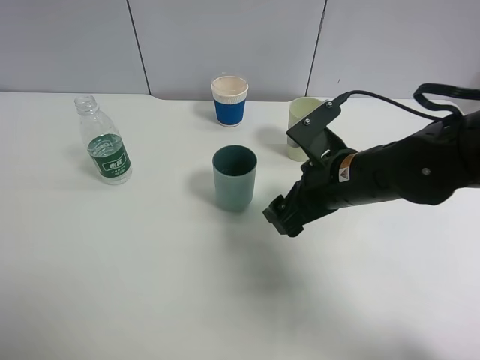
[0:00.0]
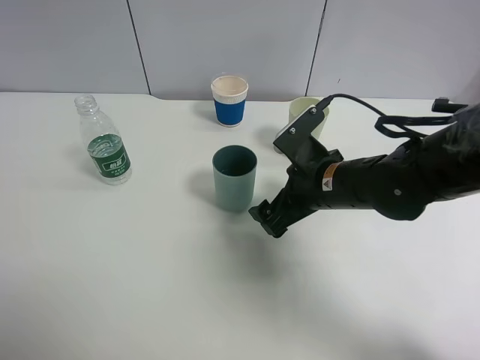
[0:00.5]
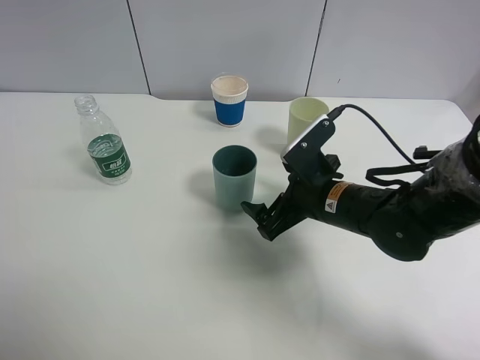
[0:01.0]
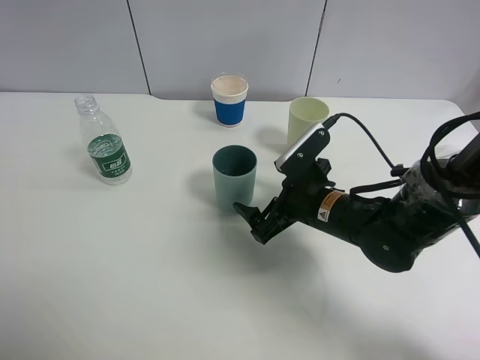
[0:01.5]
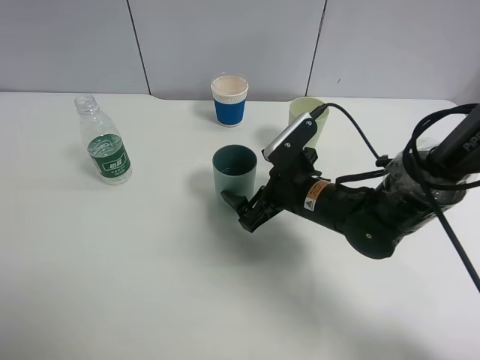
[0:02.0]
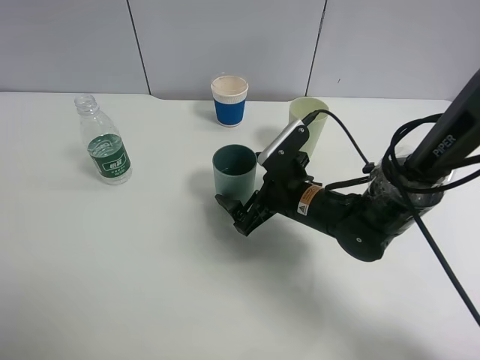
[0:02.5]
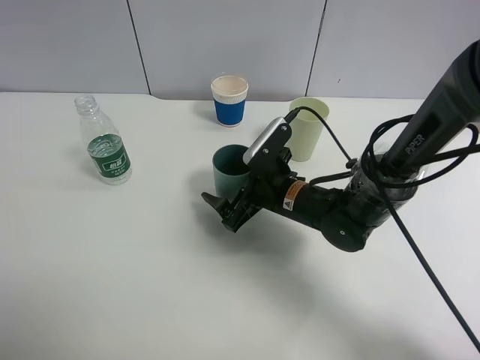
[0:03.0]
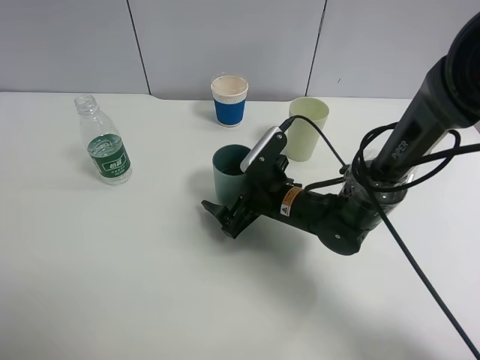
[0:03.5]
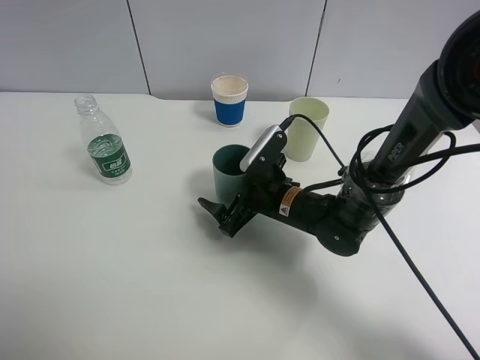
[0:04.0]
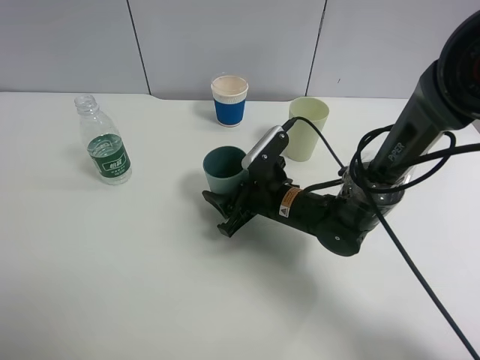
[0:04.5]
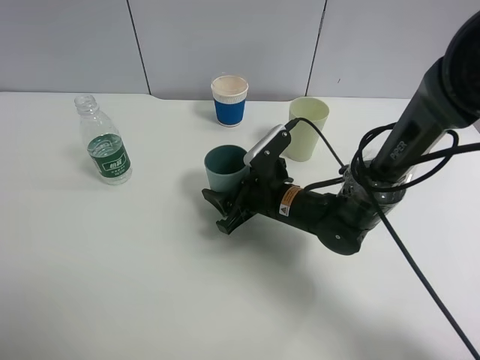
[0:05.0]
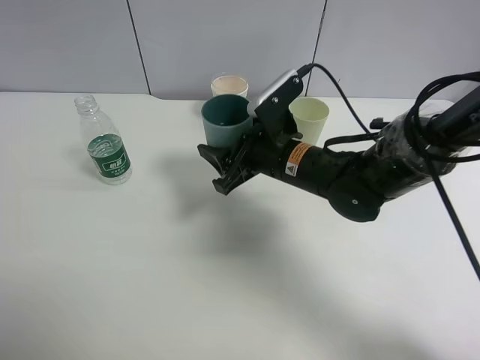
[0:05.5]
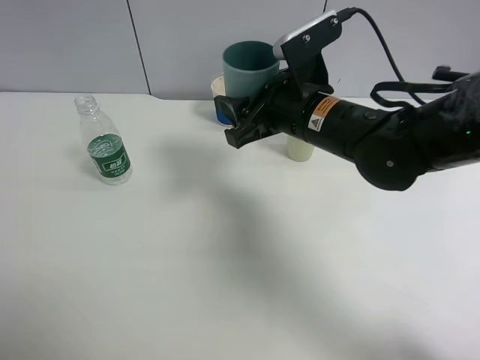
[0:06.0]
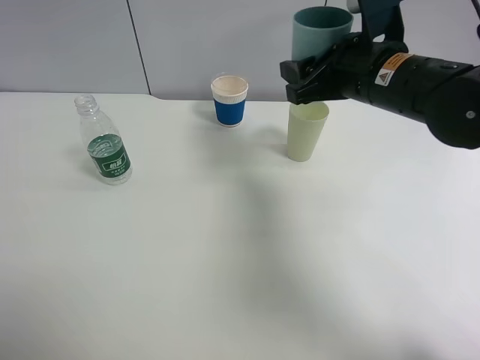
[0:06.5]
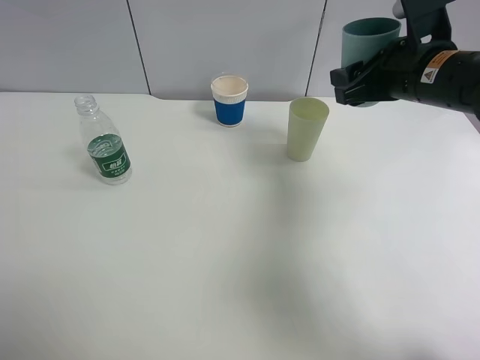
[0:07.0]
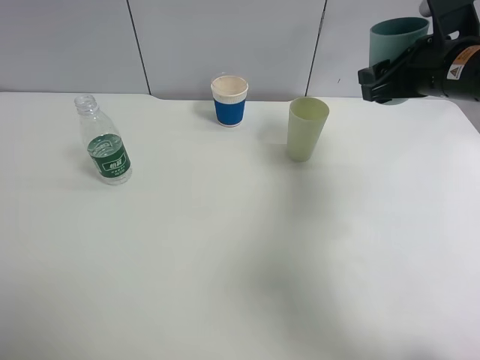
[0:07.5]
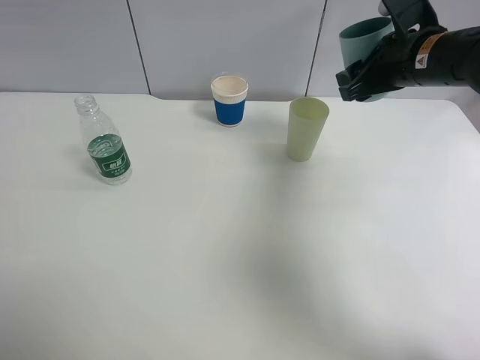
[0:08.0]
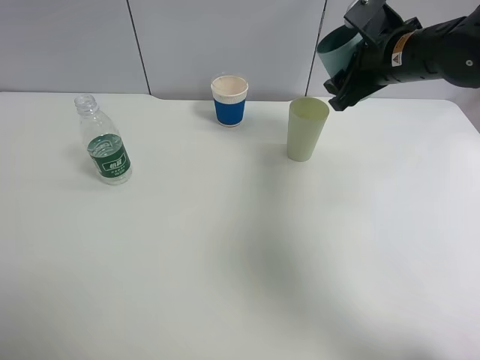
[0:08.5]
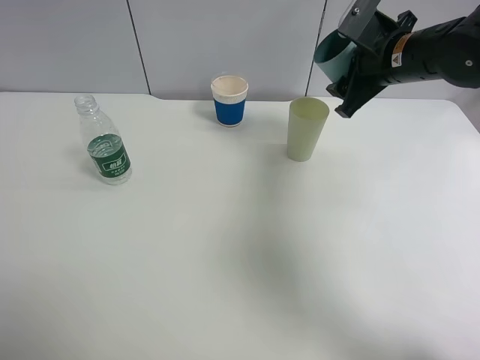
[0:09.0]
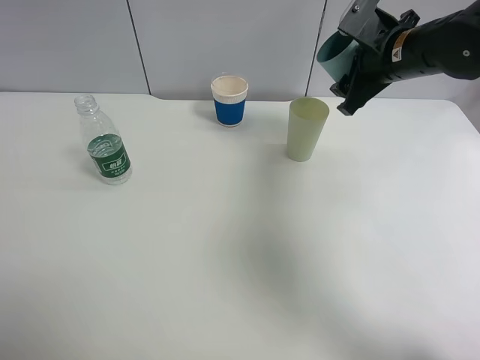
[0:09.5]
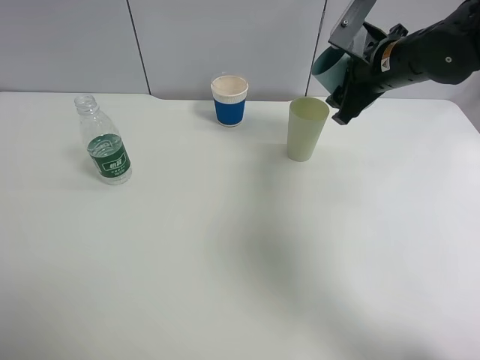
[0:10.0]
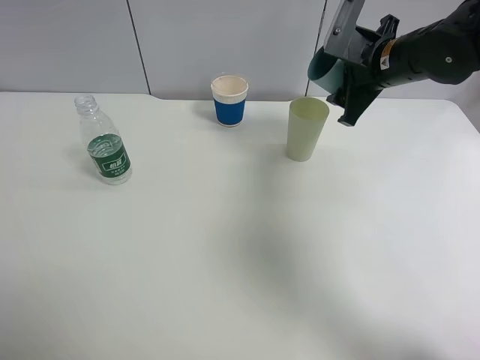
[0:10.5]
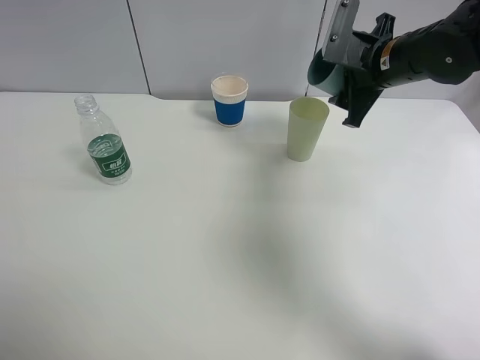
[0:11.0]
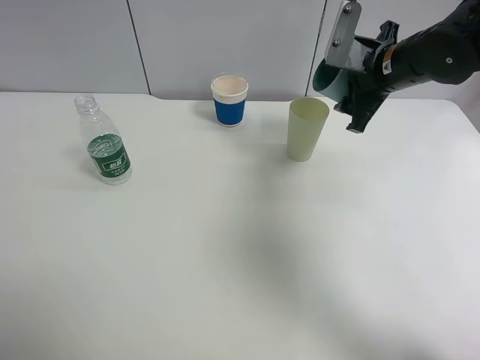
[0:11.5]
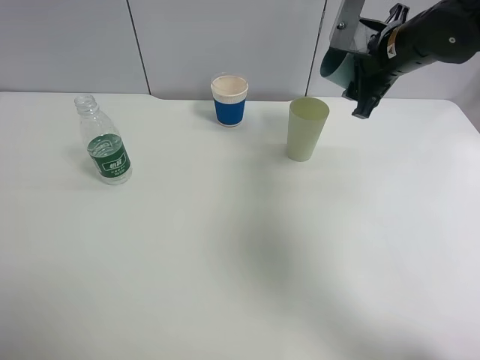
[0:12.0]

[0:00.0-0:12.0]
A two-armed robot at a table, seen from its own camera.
Task of the whole recording: use a clamp to hold the bottle of the drink, pour the beverage into a random cup, then clamp the cup containing the drink and pour the drink into another random cup.
Step, 0:00.0 to 0:05.0: Pick up the blue plastic cup bottle with right gripper.
0:00.0 to 0:02.0: The right gripper goes approximately 5 cm downward.
0:02.0 to 0:04.0: There are only small adjustments of the grippers.
0:04.0 to 0:06.0: The right gripper moves upward, some 15 cm, and closes its fingers.
0:06.0 to 0:08.0: The right gripper is displaced to the right and forward by approximately 15 cm.
0:10.0 to 0:12.0: There are only small adjustments of the grippers.

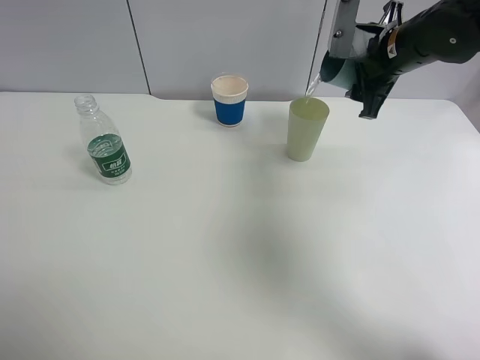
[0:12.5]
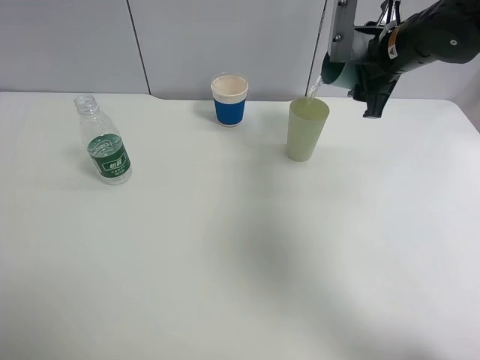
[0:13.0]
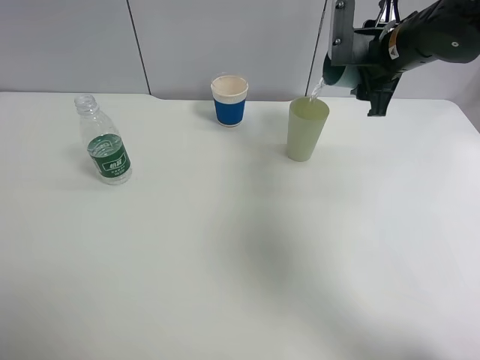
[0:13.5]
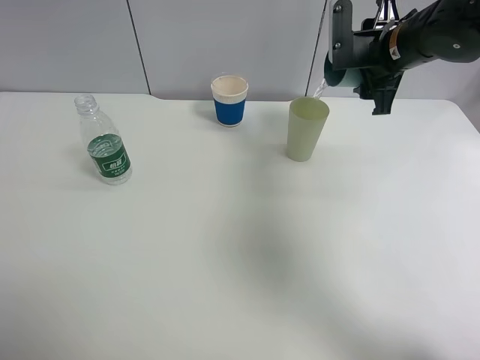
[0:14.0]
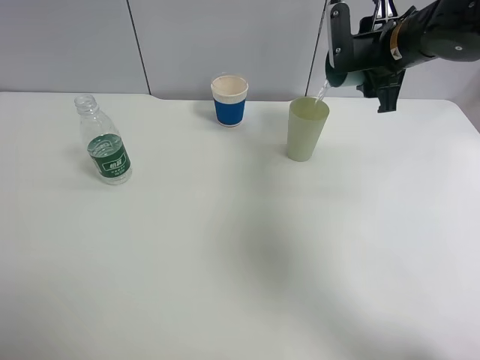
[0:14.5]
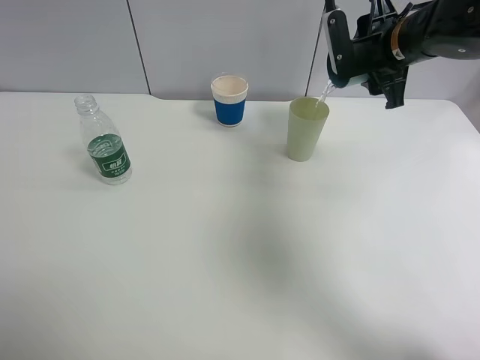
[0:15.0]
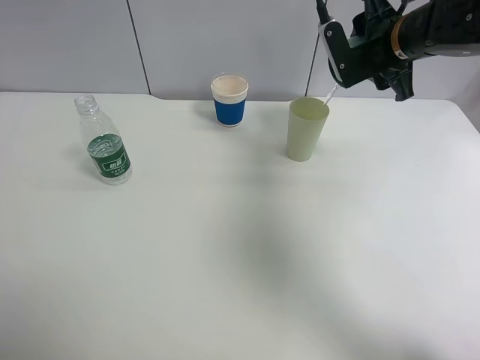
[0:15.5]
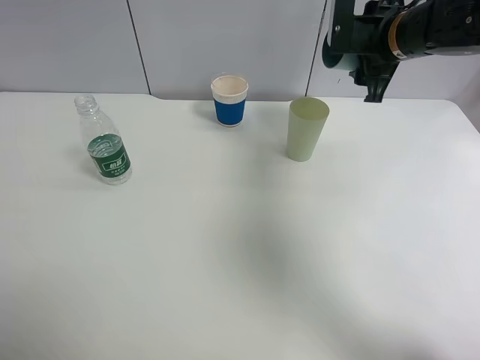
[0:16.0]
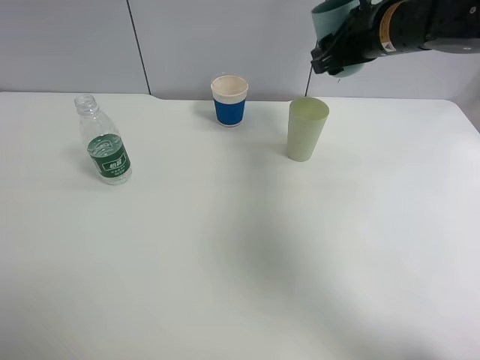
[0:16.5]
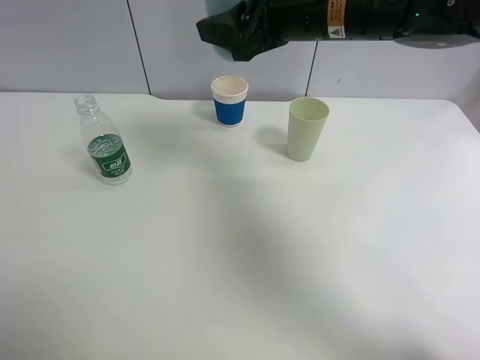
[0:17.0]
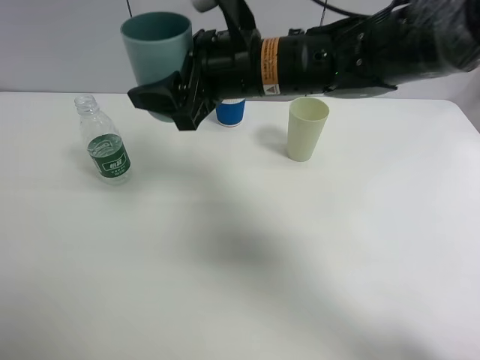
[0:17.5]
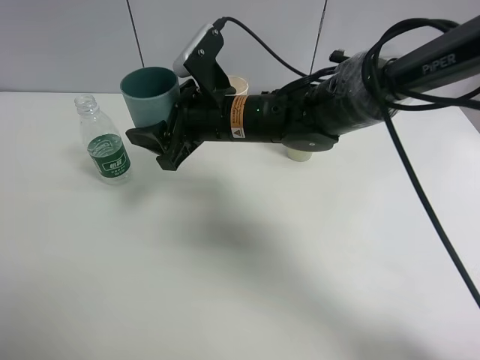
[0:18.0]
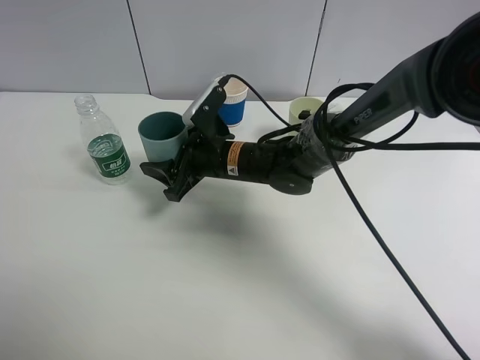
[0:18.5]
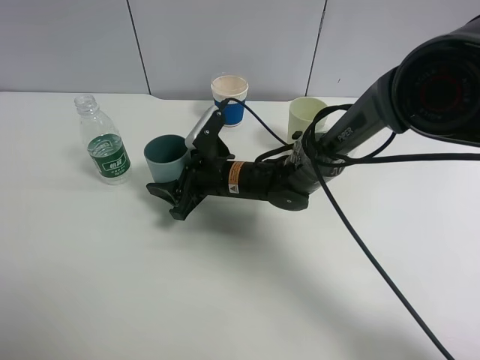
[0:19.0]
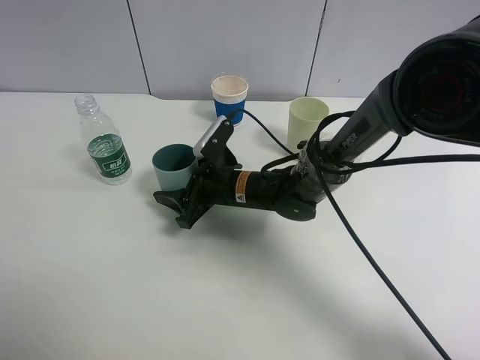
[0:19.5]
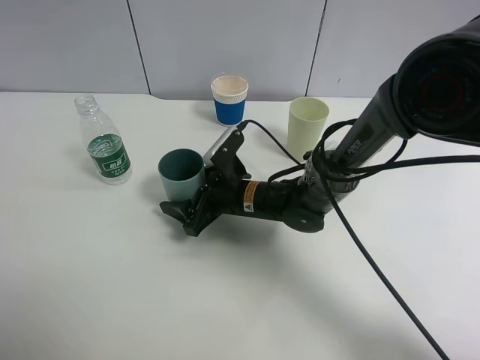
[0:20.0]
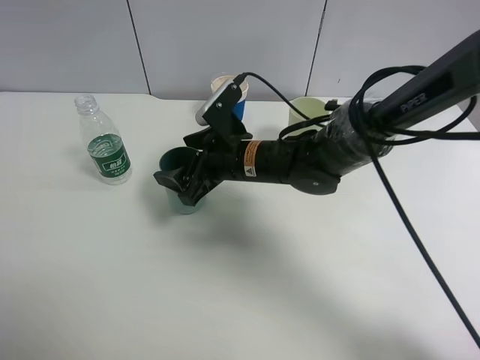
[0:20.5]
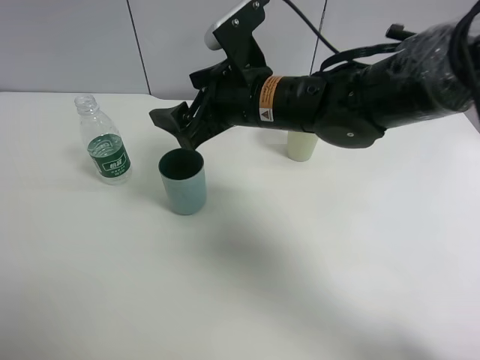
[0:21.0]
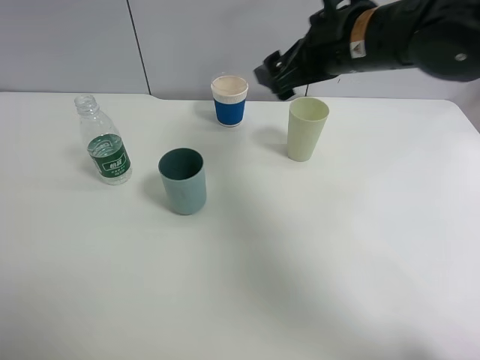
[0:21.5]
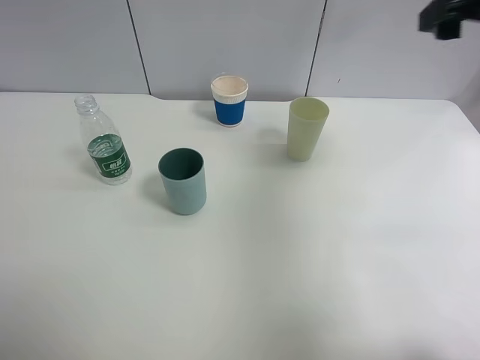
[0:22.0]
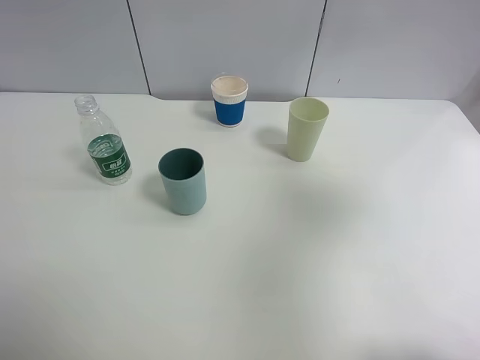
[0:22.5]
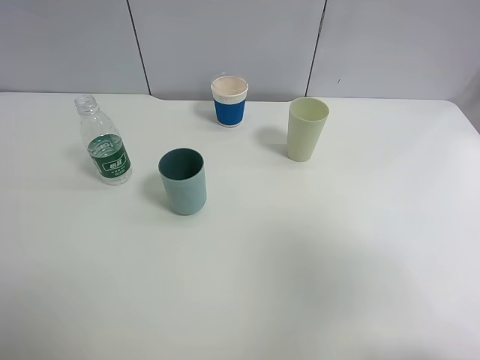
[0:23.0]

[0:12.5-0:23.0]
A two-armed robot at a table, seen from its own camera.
Task of the whole recording: use a clamp to hold the bottle of the drink, pour the beverage into a random cup, then clamp the cup containing the drink and pour the drink into another random cup.
Step, 0:12.5 to 0:15.5: Pour water into the green plastic cup with right gripper.
Step, 0:16.0 to 0:20.5: Place the blue plastic cup on the table with right gripper.
0:12.5 to 0:14.5: The grippers make only small movements.
0:16.5 to 0:19.0: The right gripper heads downward and to the left, covering some 30 cm.
0:19.0 to 0:21.0: The right gripper moves upward, some 15 cm, and opens.
0:21.0 to 0:23.0: The right gripper shifts about 40 cm backward, to the right and upward.

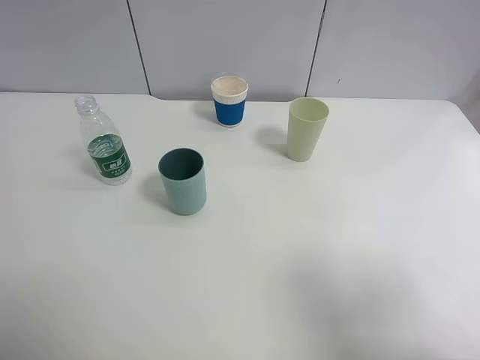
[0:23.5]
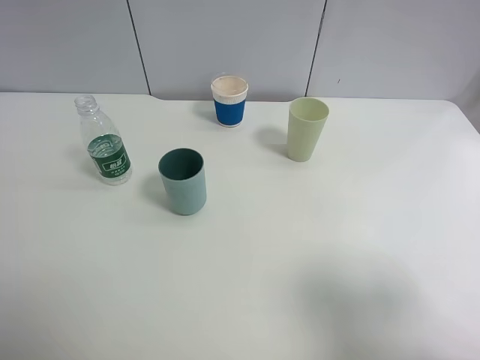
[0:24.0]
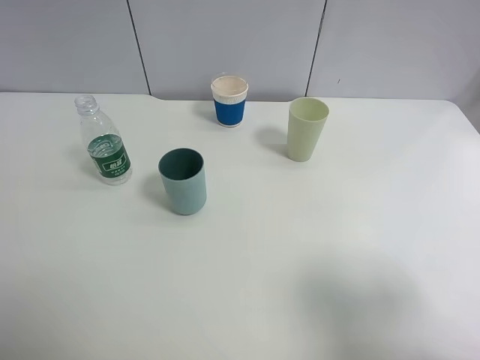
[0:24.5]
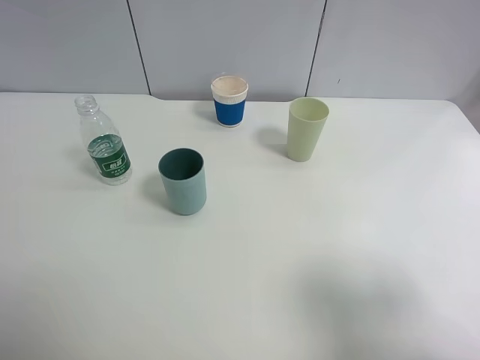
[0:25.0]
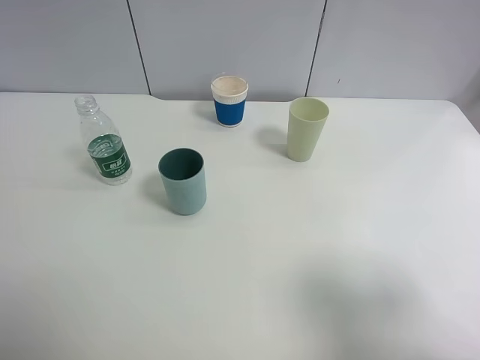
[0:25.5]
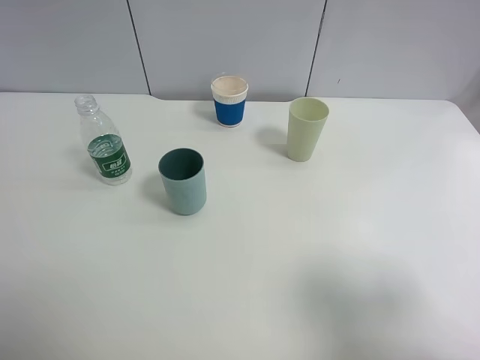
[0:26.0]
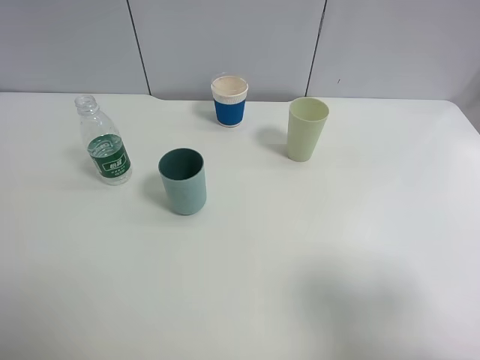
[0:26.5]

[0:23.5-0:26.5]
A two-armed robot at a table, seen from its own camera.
Task of the whole recording: use a clamp to hold the bottle of the drink, pour the beverage into a random cup, then clamp the cup containing the drink and pour the drink into another random cup.
0:25.0 to 0:26.5: Both grippers stay put.
